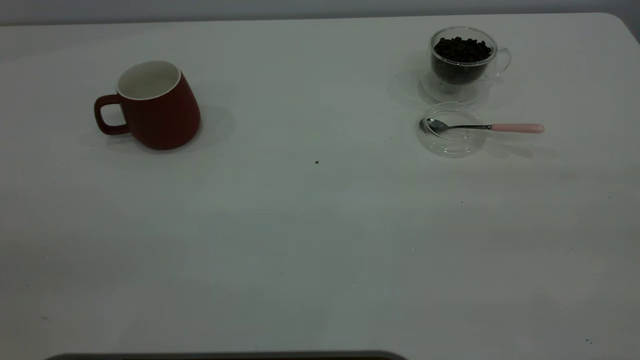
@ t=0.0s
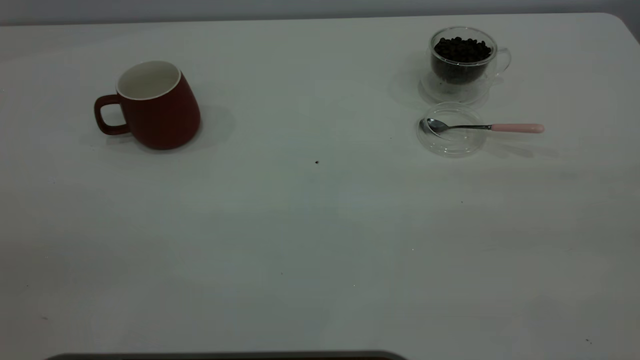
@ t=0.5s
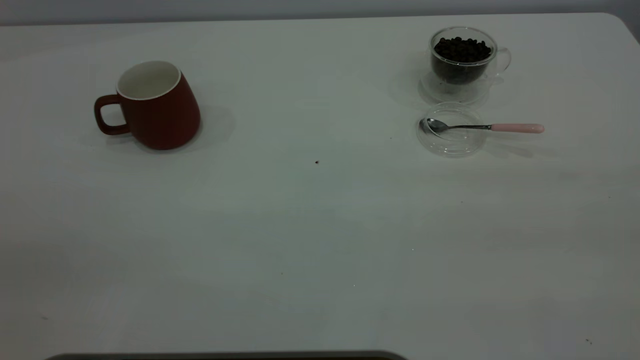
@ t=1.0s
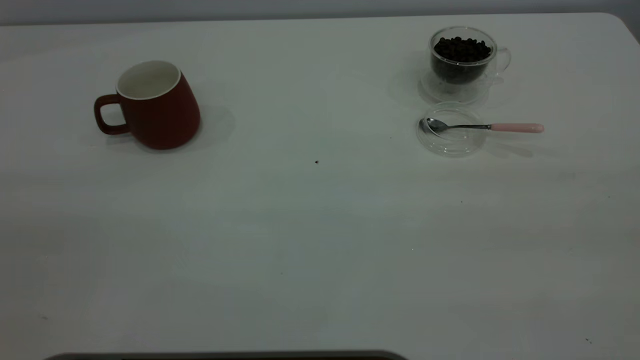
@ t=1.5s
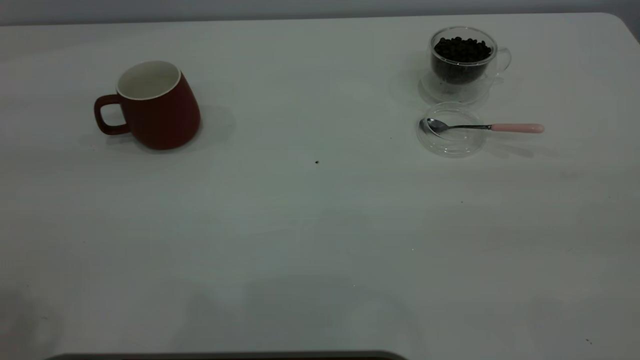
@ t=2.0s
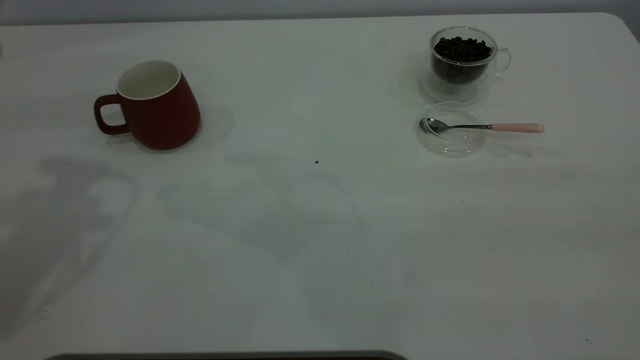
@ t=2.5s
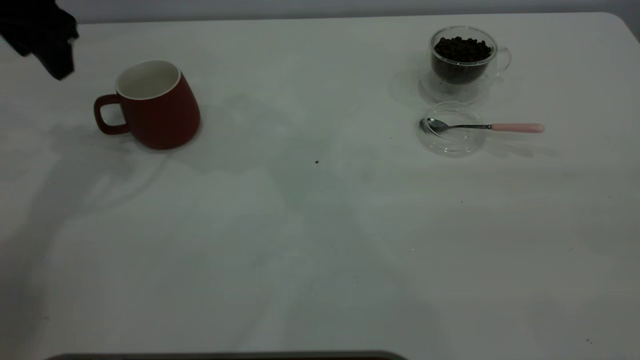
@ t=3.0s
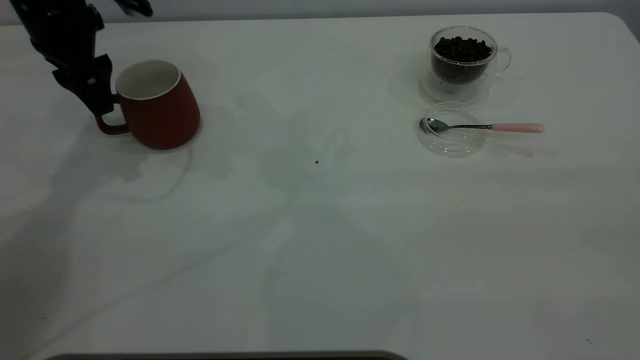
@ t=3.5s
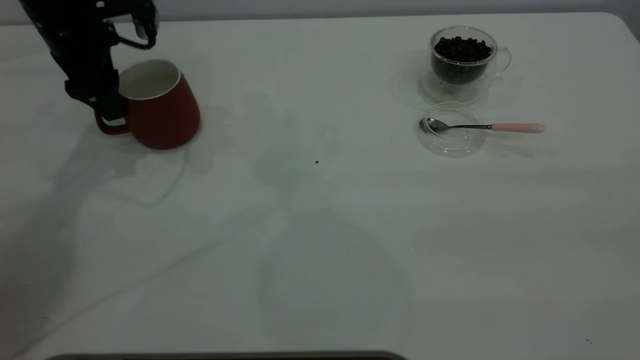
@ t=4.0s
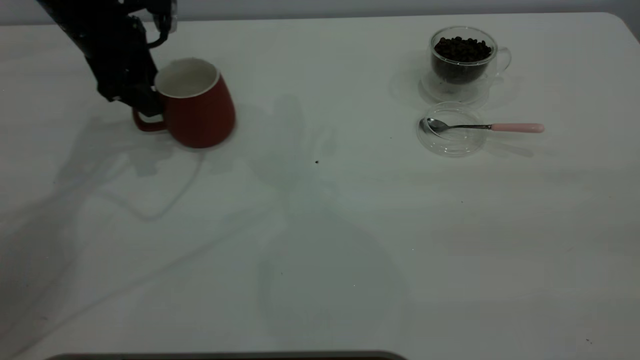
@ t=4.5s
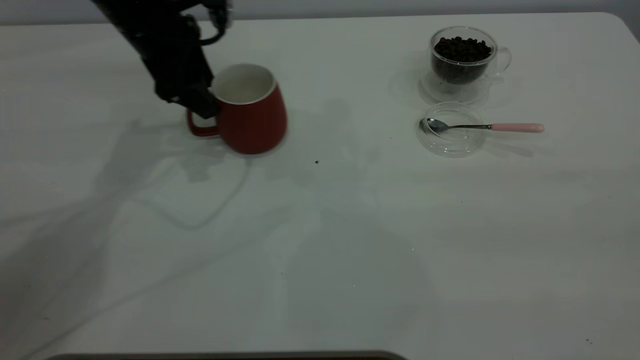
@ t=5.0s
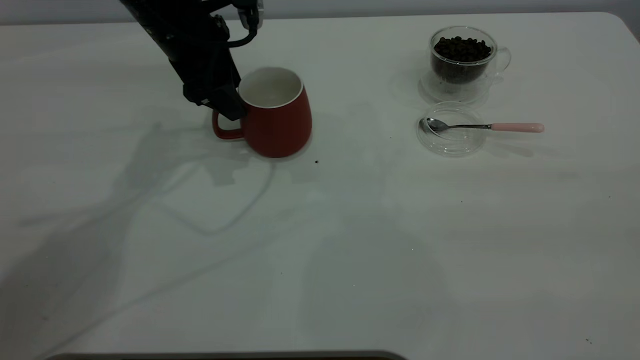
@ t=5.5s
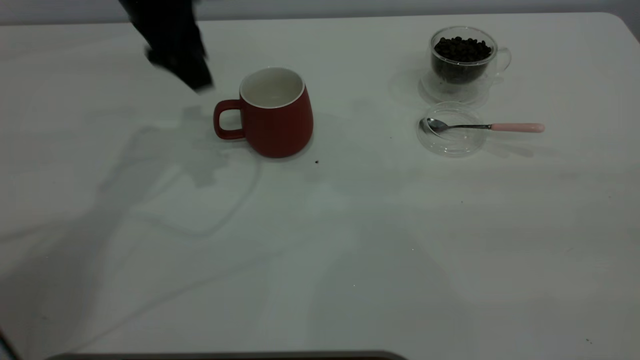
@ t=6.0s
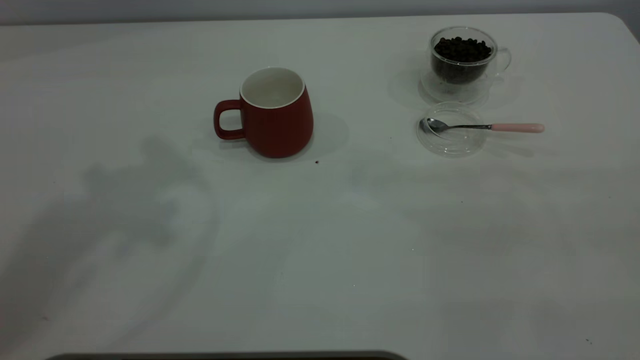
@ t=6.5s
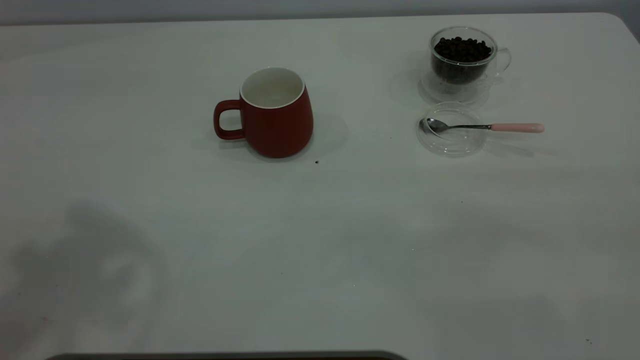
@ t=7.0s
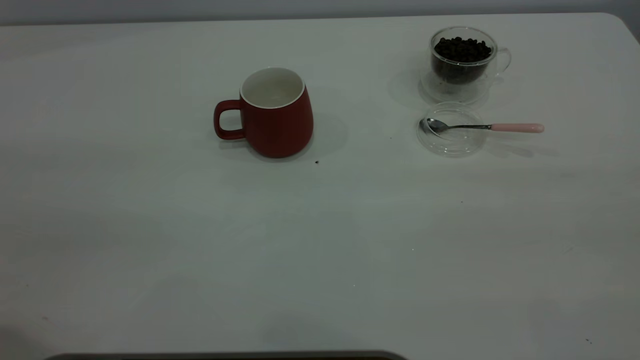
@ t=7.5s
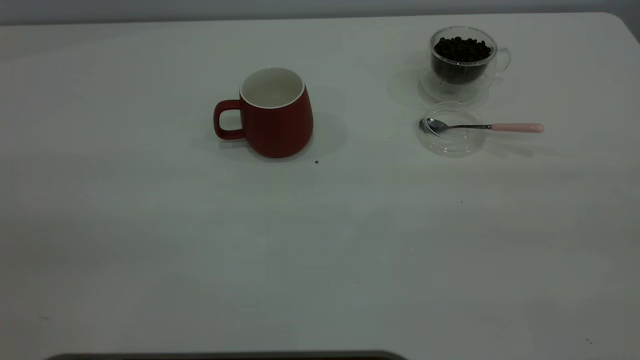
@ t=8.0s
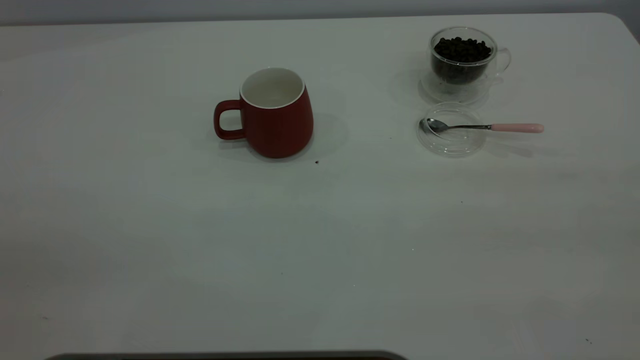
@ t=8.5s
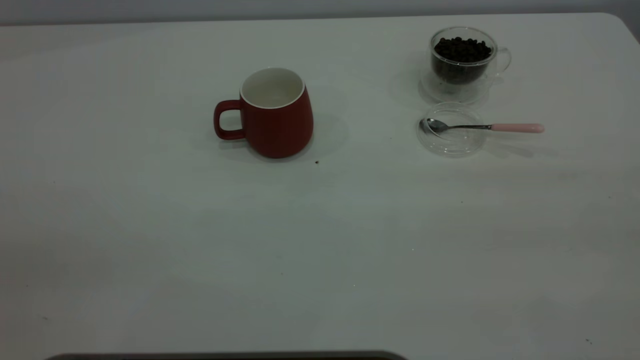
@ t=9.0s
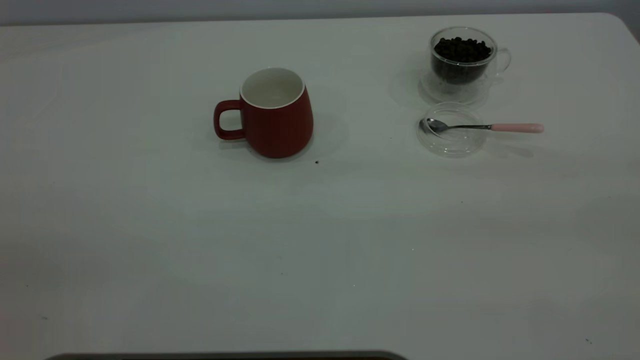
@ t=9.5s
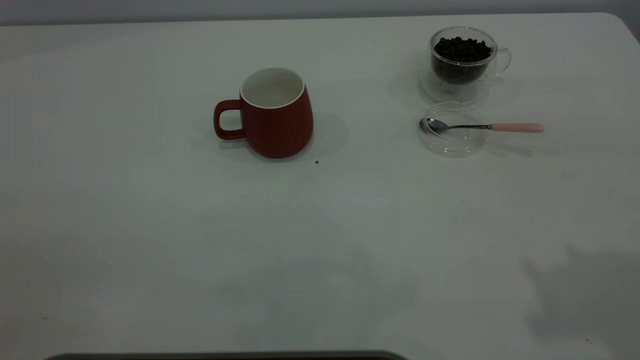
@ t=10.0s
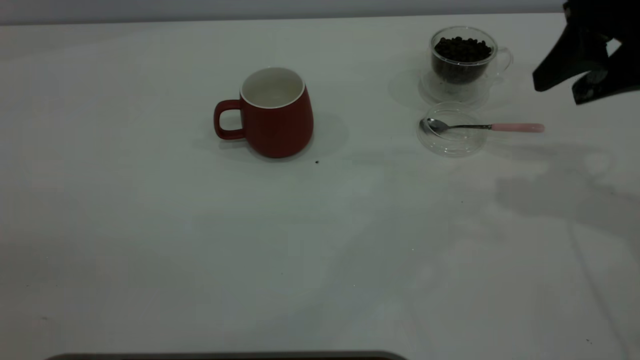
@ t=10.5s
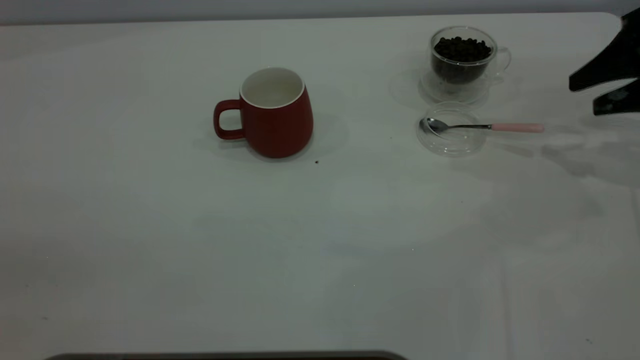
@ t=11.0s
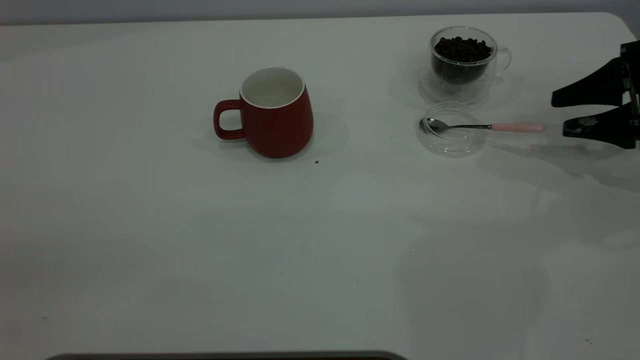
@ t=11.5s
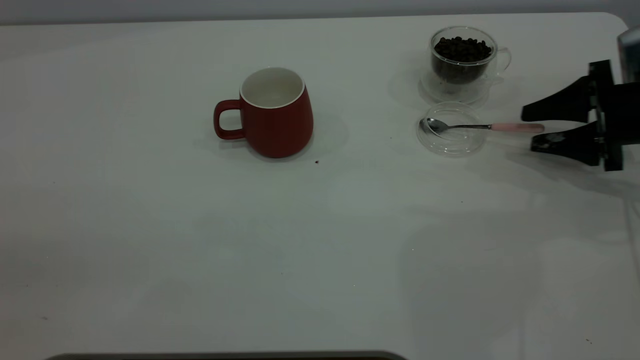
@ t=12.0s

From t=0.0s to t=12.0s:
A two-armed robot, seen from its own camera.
Task of the whole recording: the left gripper place the red cup in the center of the table, the right gripper take the pink spoon from the cup lid and scoop out the coffee beans from the coffee cup and put them into the red cup, the right gripper put the spoon back into the cup lid.
Step, from t=0.0s to t=5.5s: Move the cup to the center of view.
From t=2.0s to t=4.0s: The left gripper moves forward and downward, about 35 cm.
From t=4.0s to t=6.0s: The left gripper is displaced to the right and upward by some 10 cm.
From t=6.0s to t=8.0s: The left gripper is displaced backward by some 40 cm.
From t=10.0s to t=12.0s: The right gripper shifts some 35 cm downward and forward.

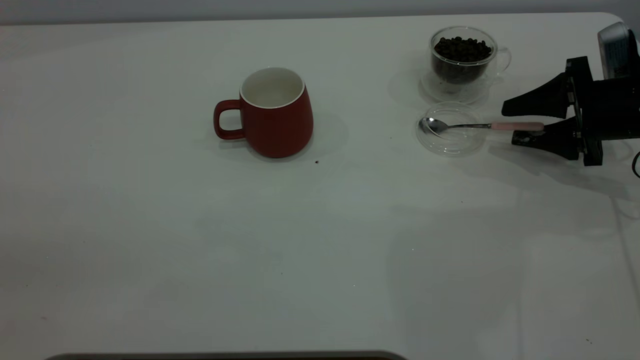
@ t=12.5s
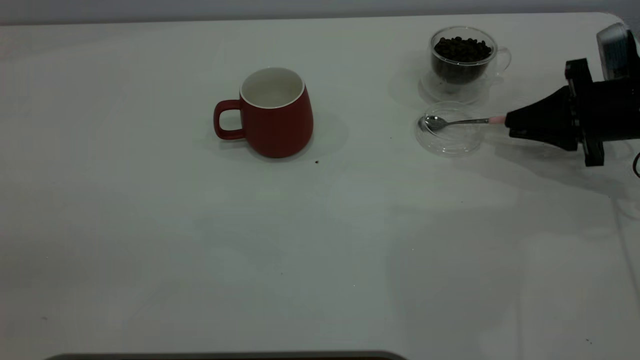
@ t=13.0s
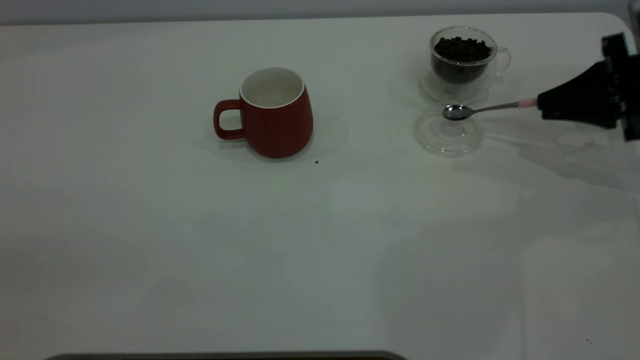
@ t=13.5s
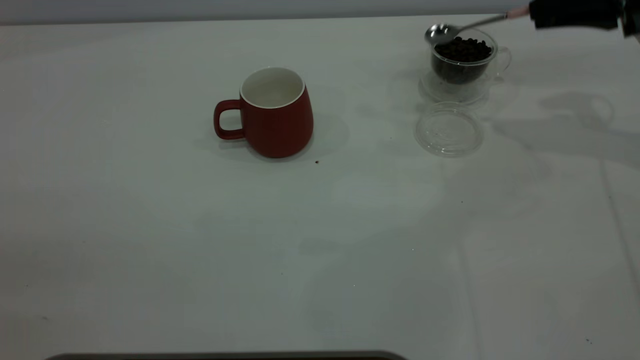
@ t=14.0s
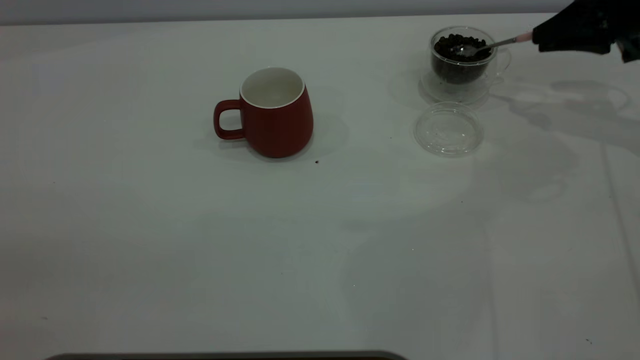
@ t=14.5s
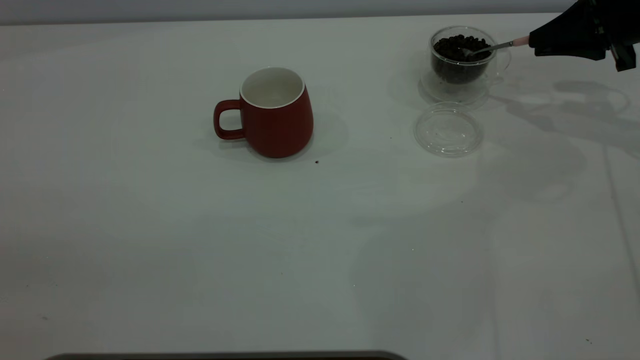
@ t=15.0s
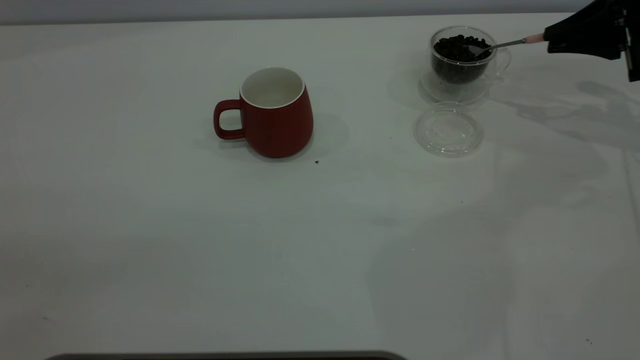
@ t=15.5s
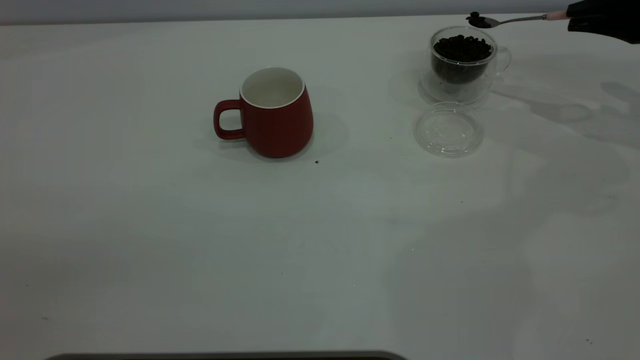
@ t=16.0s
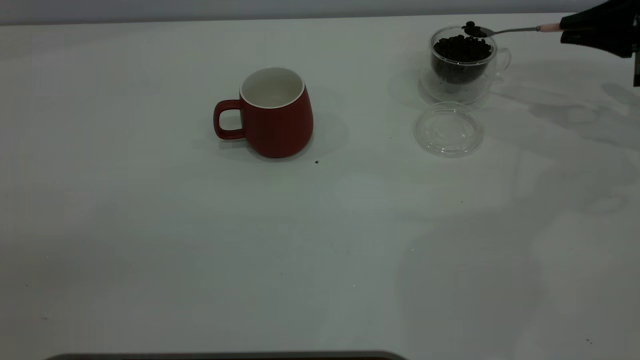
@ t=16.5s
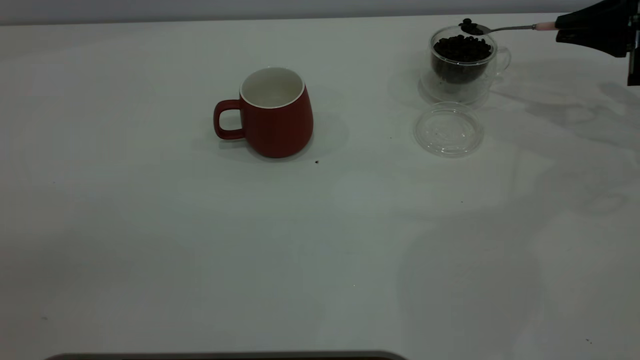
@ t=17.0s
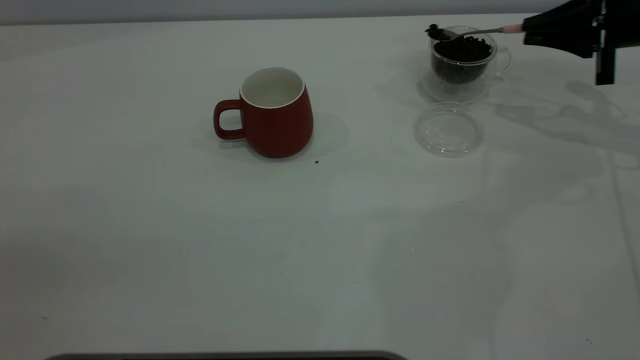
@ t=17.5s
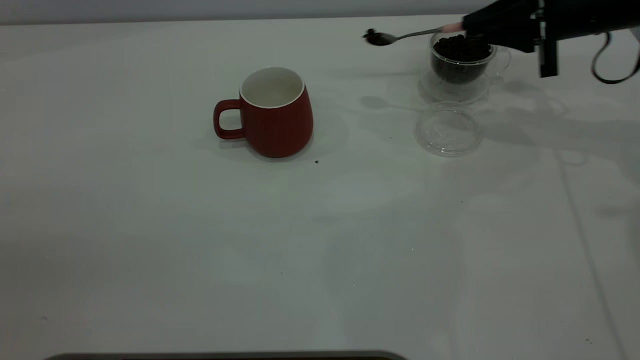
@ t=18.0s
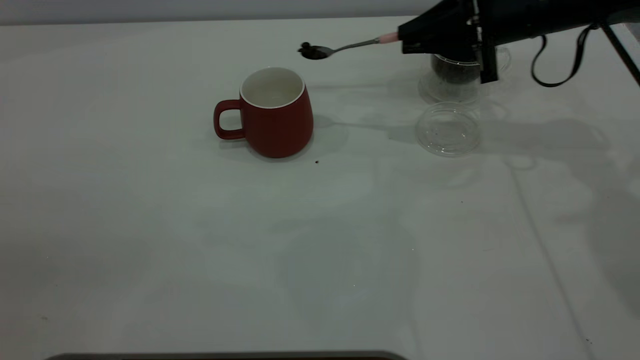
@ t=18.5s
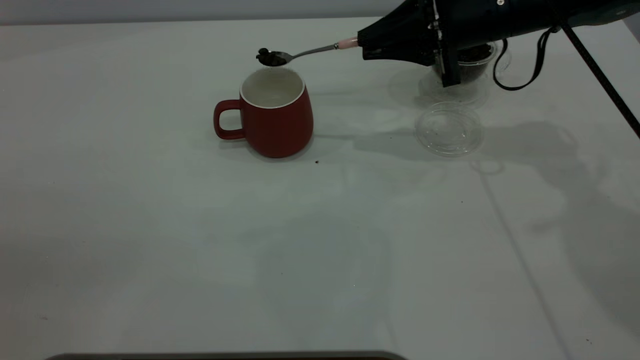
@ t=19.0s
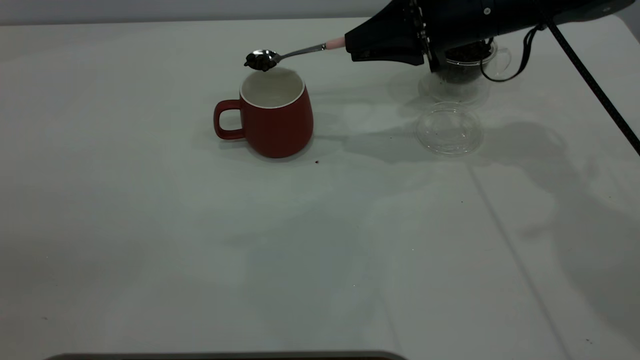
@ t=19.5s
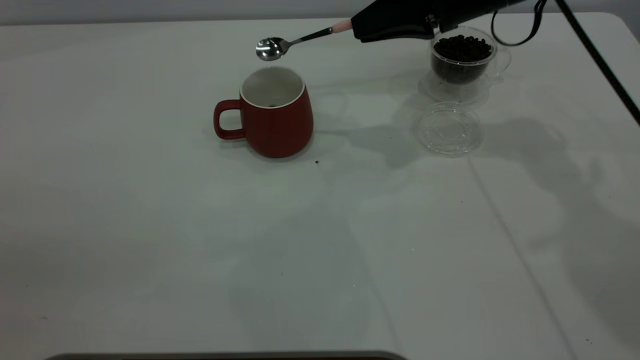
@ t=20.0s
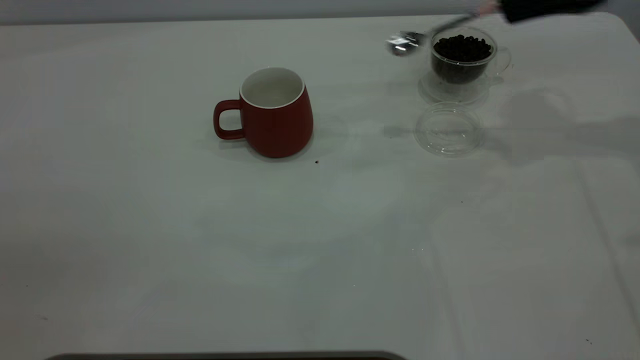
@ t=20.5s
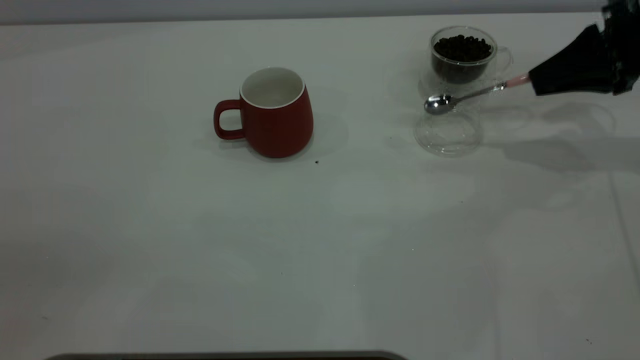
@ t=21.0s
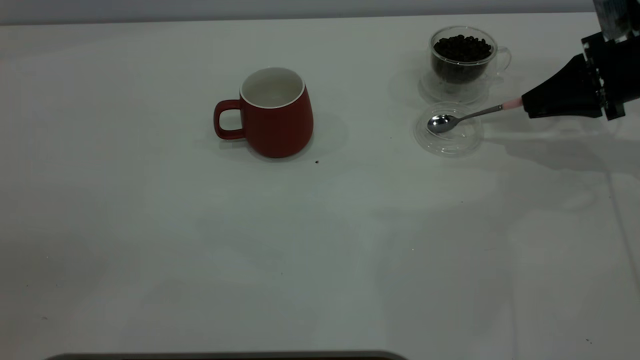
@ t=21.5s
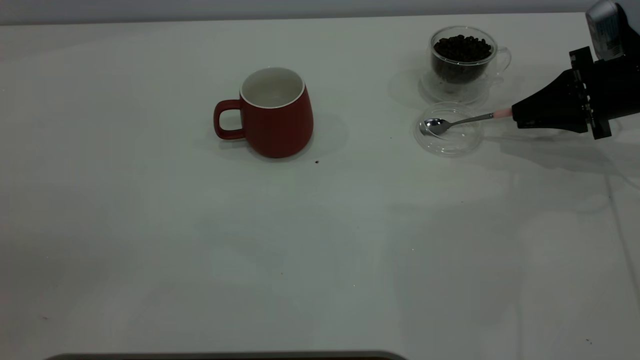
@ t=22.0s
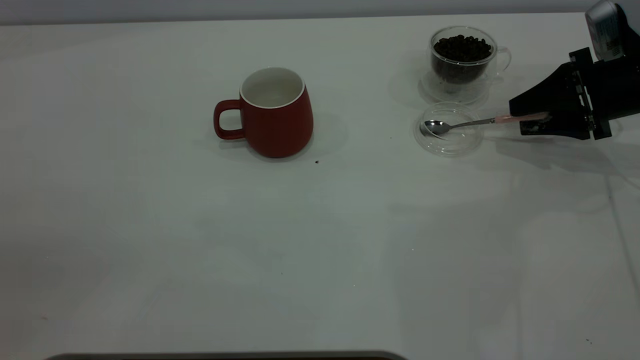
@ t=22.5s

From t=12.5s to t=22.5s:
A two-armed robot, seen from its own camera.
Task of the whole recording: the left gripper place the red cup in the center of the table, the right gripper take the pink spoon from the cup lid and scoop out the coffee beans from the coffee cup and put them into the red cup, the right gripper put the spoon back into the cup lid.
Step, from t=14.0s to t=20.0s: Scoop a spoonful of beans into the cup.
From t=12.5s to t=14.5s: The right gripper travels upward and forward by some 10 cm, and closes.
From t=16.5s to t=18.5s: The right gripper is displaced to the left by about 20 cm.
From t=18.5s to t=20.5s: The right gripper is displaced to the right and upward by roughly 10 cm.
From t=20.5s to t=22.5s: The right gripper travels downward by roughly 15 cm, and opens up.
